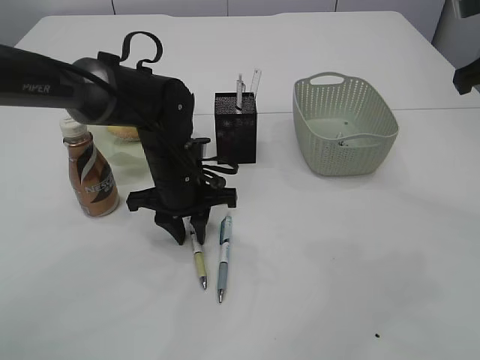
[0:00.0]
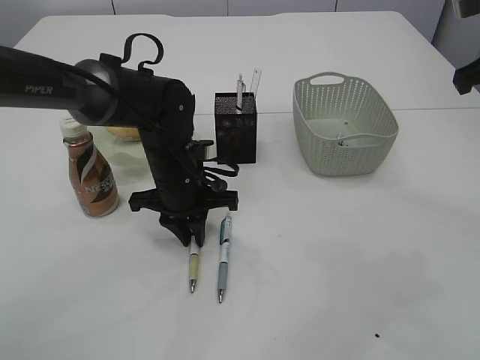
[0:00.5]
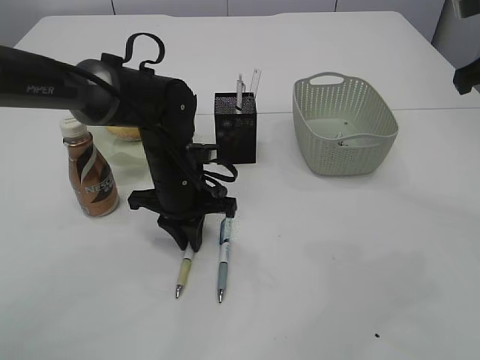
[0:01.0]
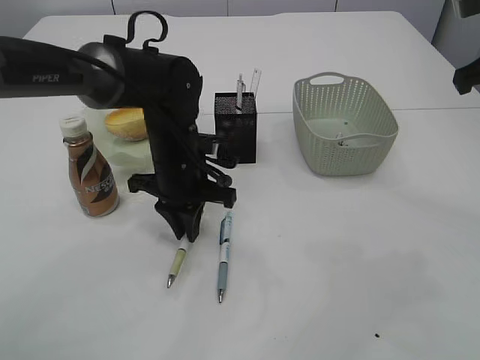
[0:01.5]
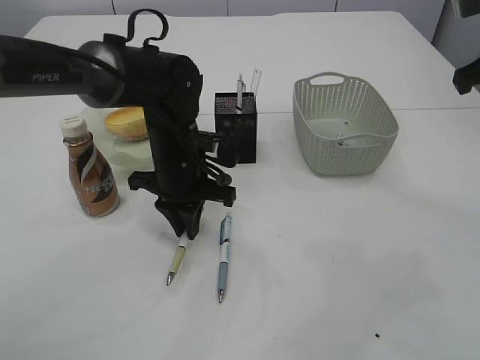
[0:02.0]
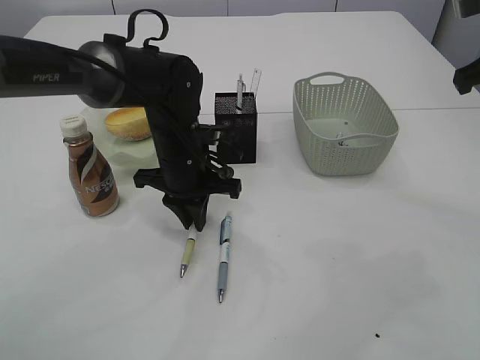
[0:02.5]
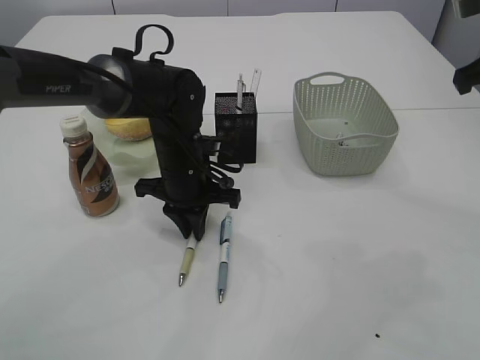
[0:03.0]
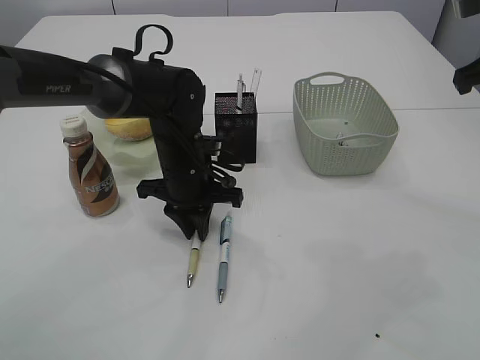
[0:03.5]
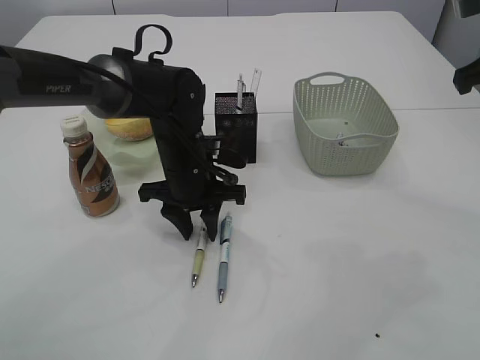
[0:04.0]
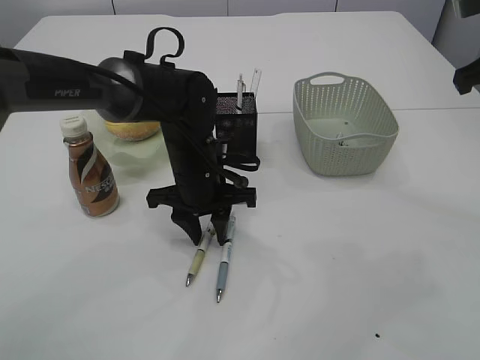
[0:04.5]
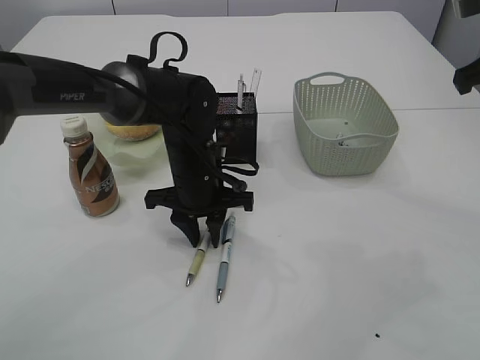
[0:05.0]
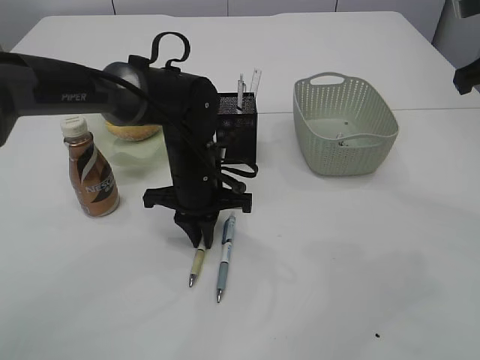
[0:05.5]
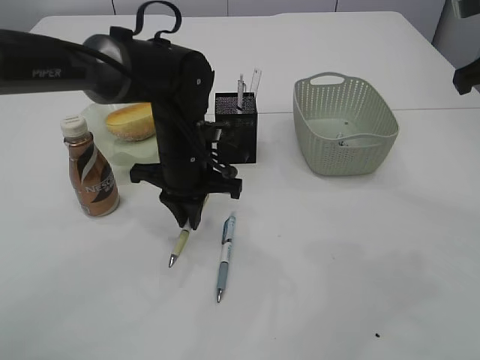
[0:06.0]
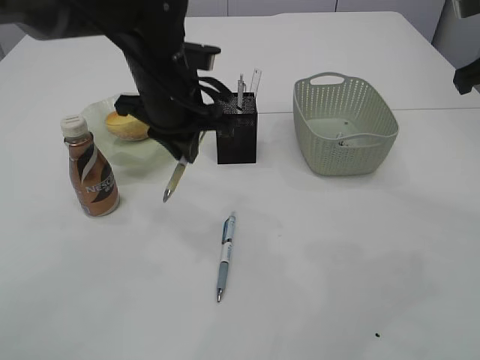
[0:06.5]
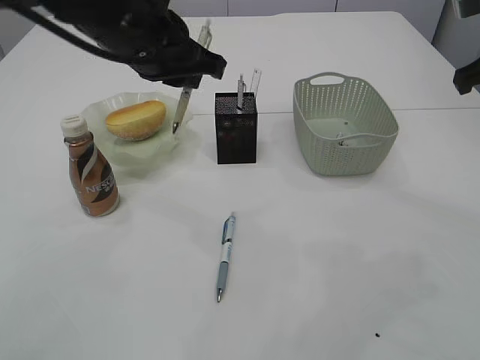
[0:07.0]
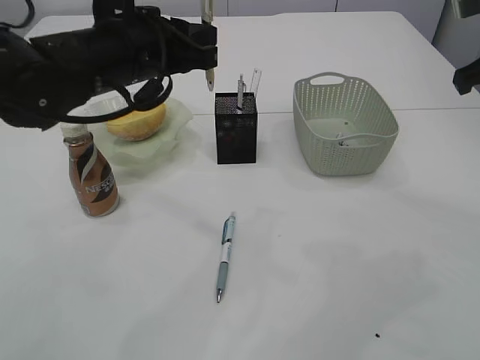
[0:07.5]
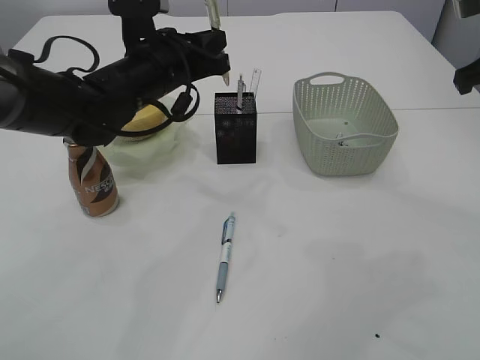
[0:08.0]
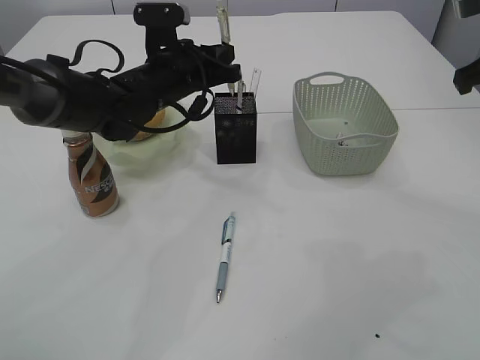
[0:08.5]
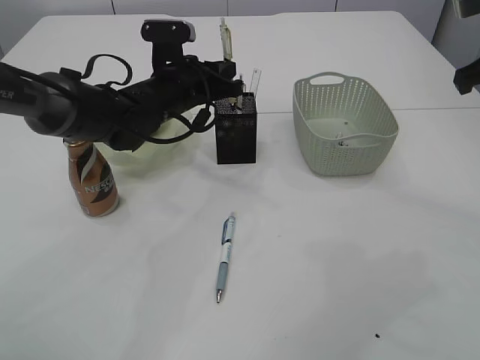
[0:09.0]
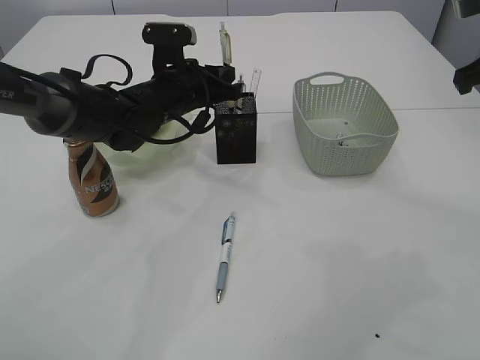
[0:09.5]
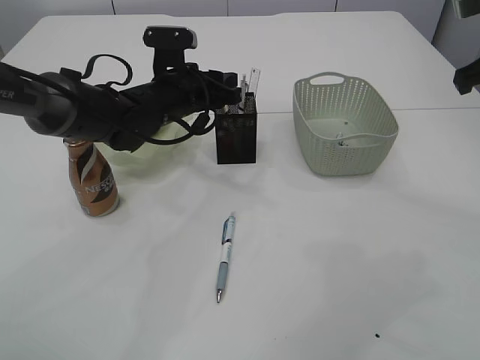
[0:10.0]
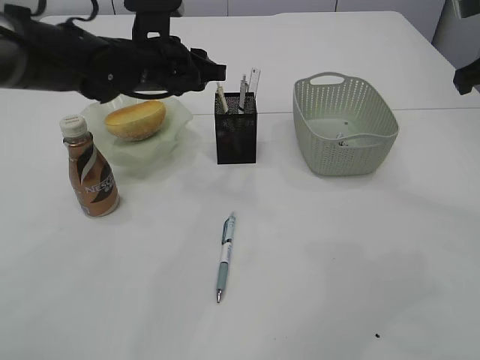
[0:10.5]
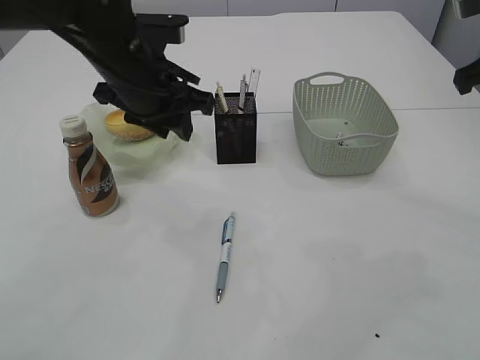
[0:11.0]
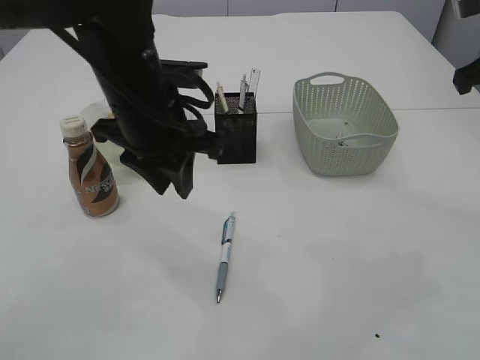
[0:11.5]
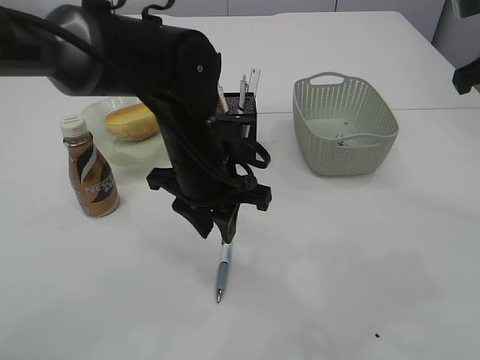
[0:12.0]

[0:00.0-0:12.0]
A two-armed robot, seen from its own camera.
Step, 0:00.0 to 0:06.5: Pick up the pen with left arm.
Step, 0:07.0 to 0:10.5: Place the pen into the pen holder.
0:00.0 to 0:02.0: The grippers stay close to where they were, moving slightly.
0:02.0 to 0:04.0: The left gripper opens.
0:04.0 to 0:06.0: The left gripper closes its fingers.
0:06.0 to 0:08.0: The left gripper goes about 10 cm upward.
0:08.0 to 0:10.0: The left gripper goes some 5 cm downward, and opens.
0:10.0 to 0:12.0: The left gripper heads backward, covering approximately 15 cm.

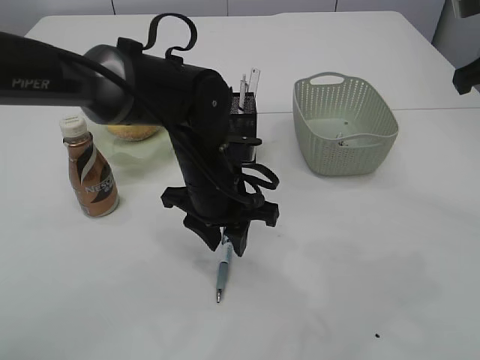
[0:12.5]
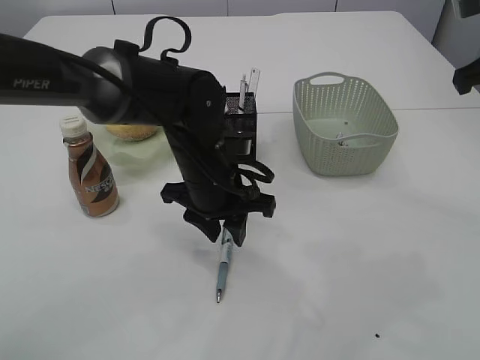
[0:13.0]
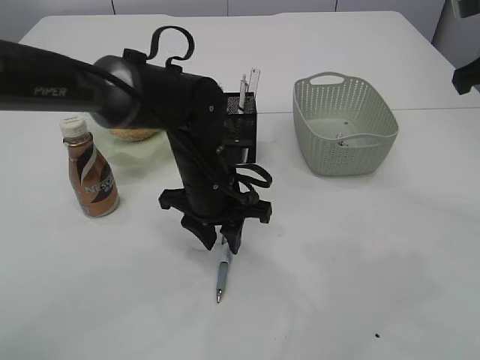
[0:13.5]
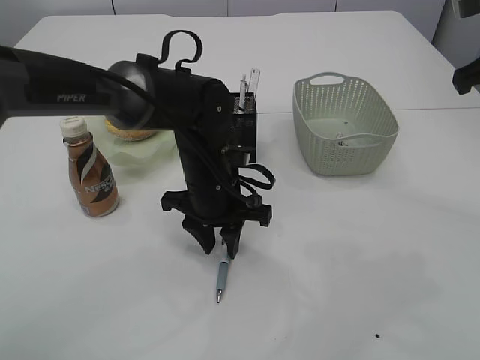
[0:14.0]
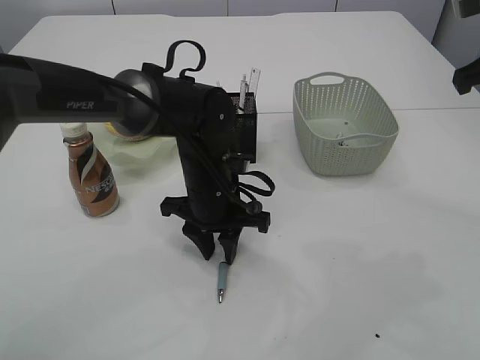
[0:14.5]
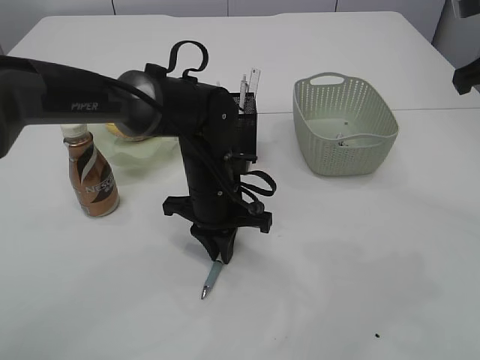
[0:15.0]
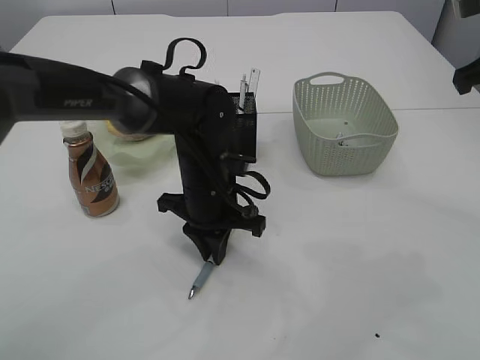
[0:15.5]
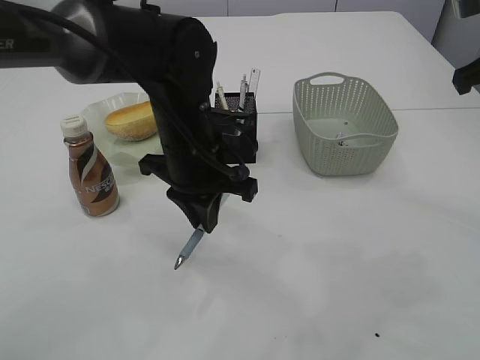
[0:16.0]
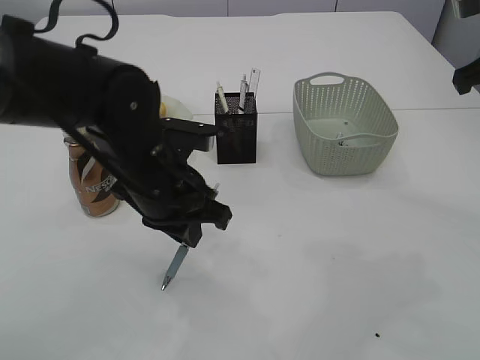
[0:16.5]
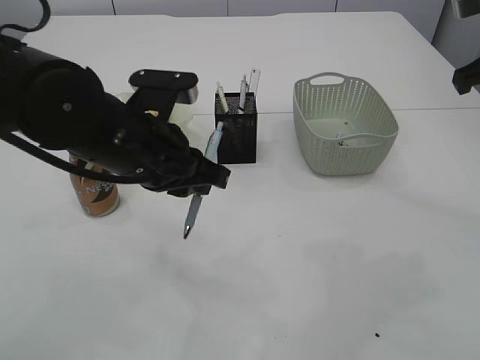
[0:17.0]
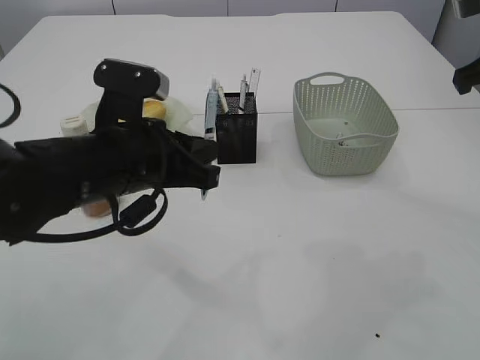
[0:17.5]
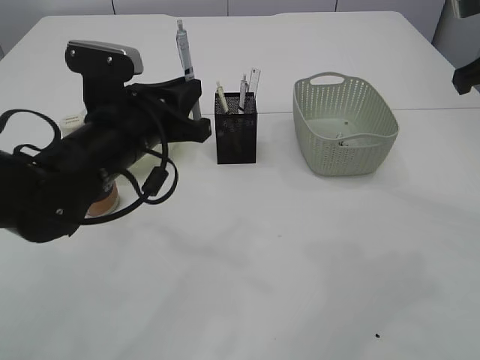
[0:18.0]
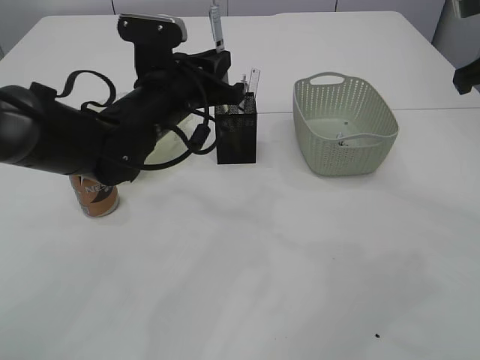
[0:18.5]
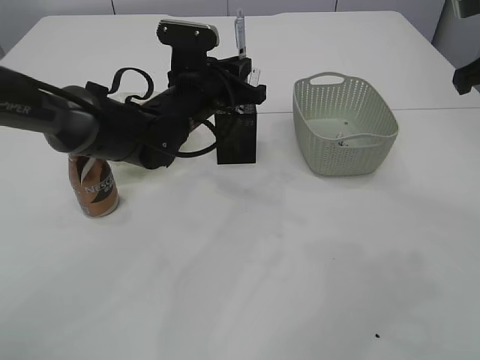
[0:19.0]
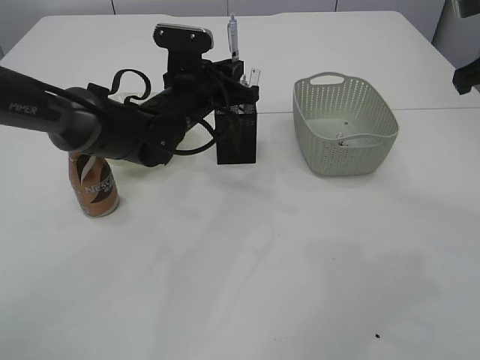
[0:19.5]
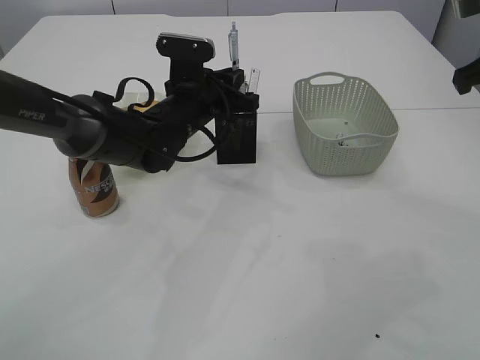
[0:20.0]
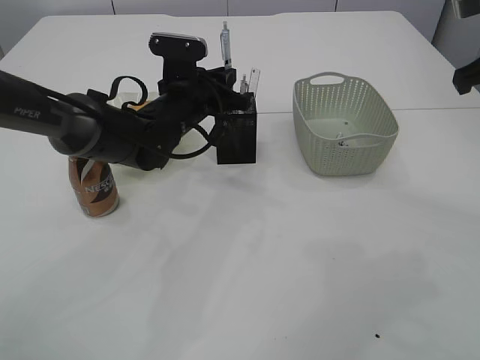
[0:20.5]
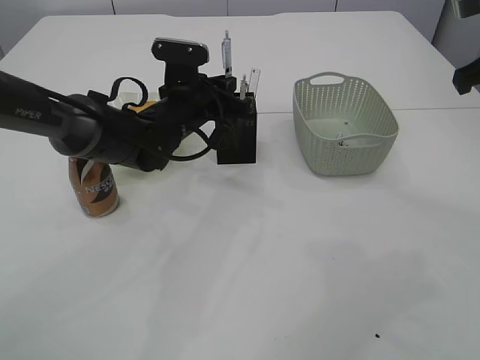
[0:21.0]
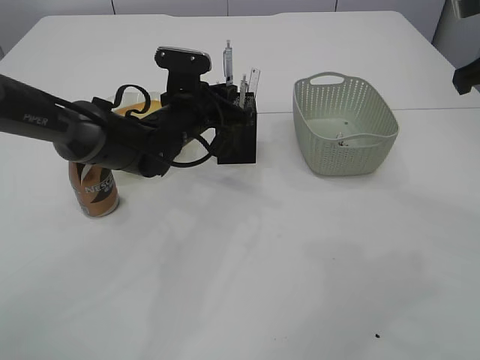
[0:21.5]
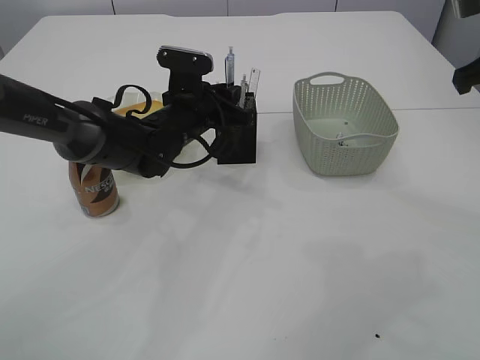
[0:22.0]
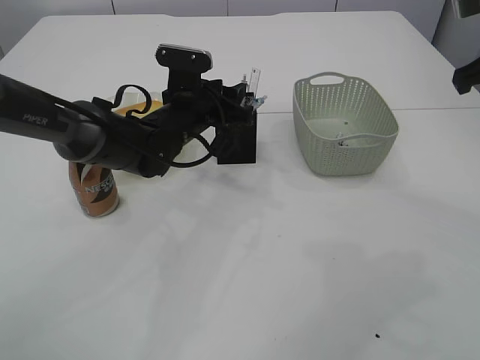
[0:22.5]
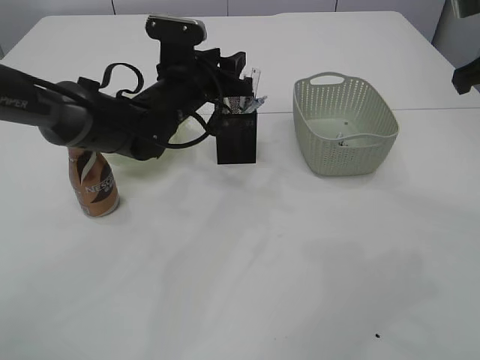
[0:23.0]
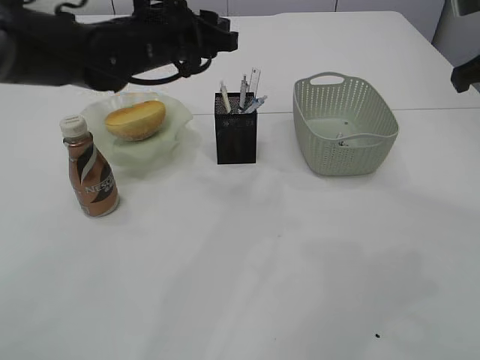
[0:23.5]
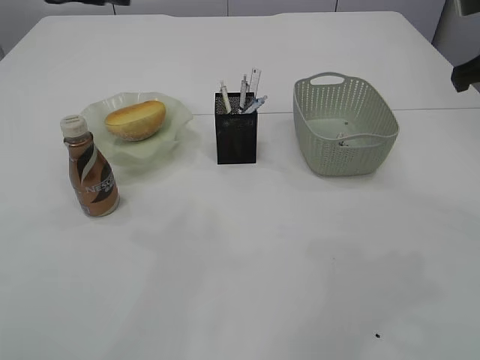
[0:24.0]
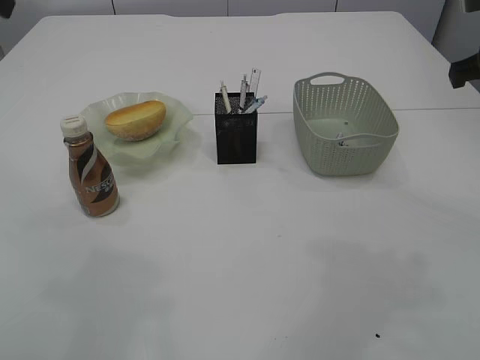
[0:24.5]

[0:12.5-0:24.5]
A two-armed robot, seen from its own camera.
Step, 0:12.5 to 0:16.0: Pick up the pen with left arm.
Step, 0:16.5 to 0:23.0: Place the pen into the pen holder.
0:12.5 to 0:14.5: The grippers move only a little.
0:14.5 to 0:16.5: The left gripper travels upward and backward by approximately 10 cm, and closes its fingers.
0:16.5 to 0:18.5: The left gripper shifts some 5 cm forward.
0:18.5 to 0:20.5: The left gripper is displaced forward by roughly 5 cm.
0:20.5 to 0:22.5: The left gripper opens.
0:22.5 to 0:24.5: The left gripper is displaced upward and to the left by roughly 35 cm.

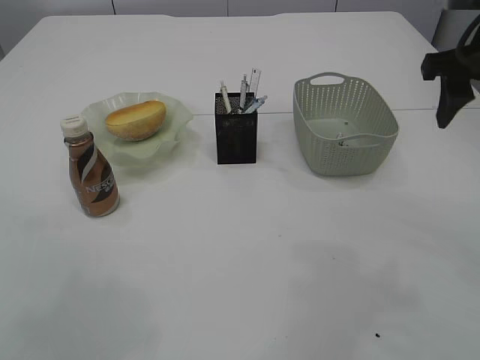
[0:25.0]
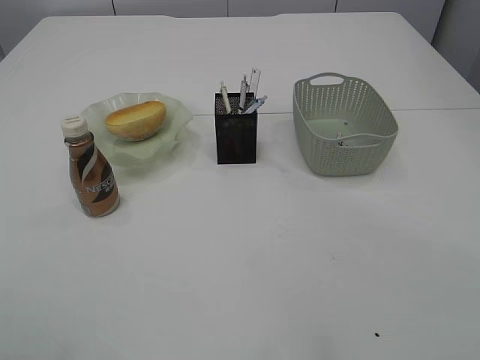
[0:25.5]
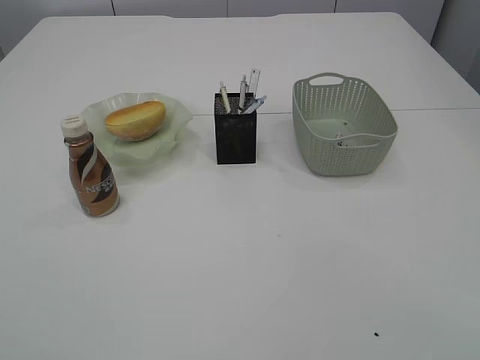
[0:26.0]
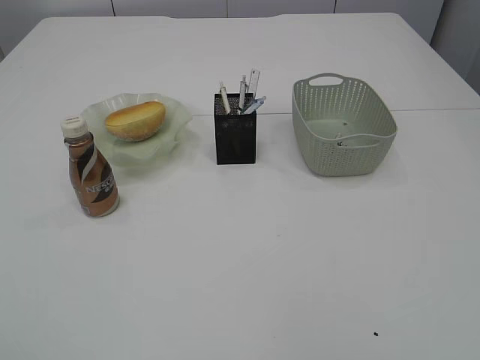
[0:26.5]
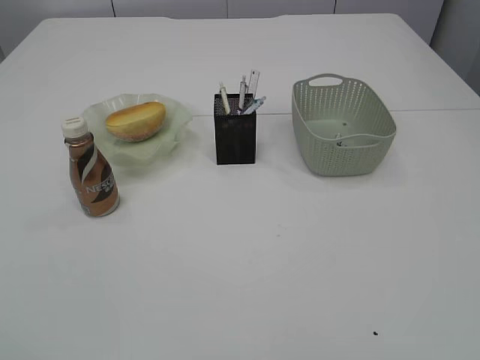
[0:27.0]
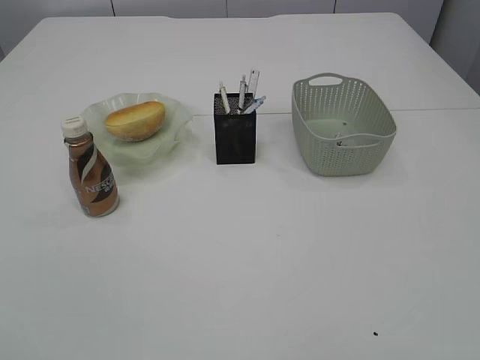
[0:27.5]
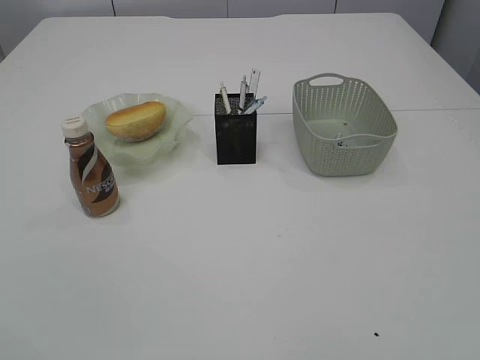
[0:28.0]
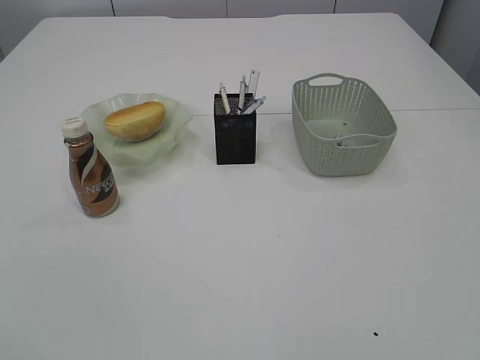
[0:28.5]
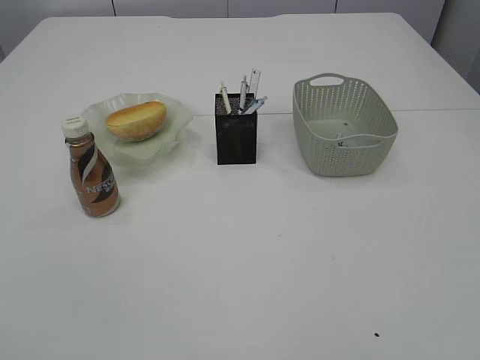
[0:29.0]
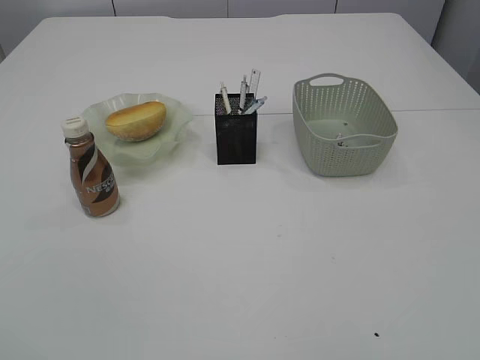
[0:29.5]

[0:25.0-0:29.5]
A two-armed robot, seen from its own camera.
0:25.0 to 0:27.0: Both grippers move backward, some 35 cm.
